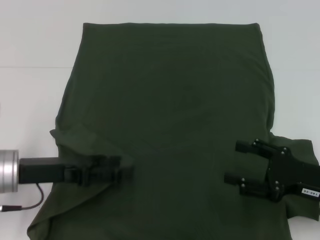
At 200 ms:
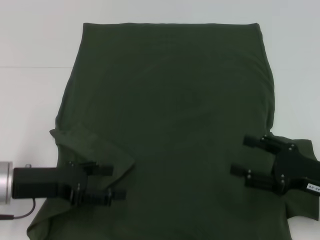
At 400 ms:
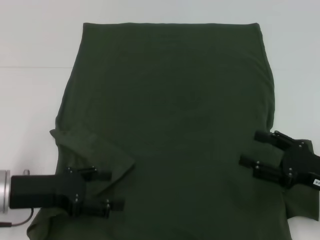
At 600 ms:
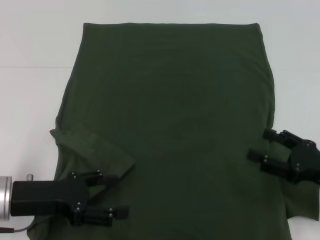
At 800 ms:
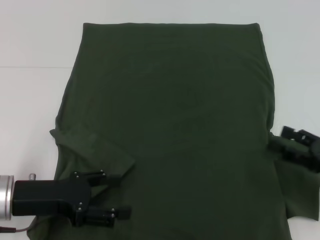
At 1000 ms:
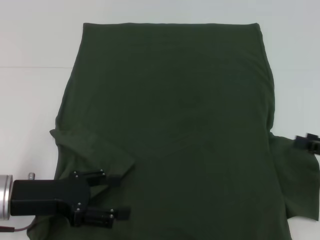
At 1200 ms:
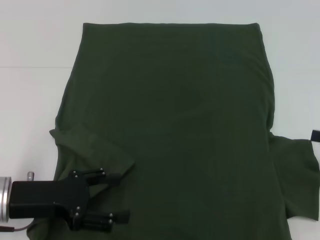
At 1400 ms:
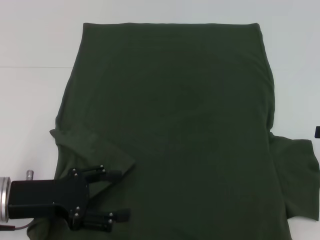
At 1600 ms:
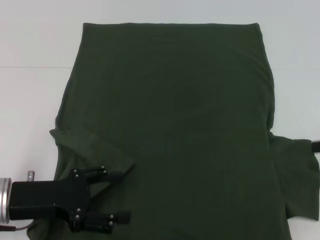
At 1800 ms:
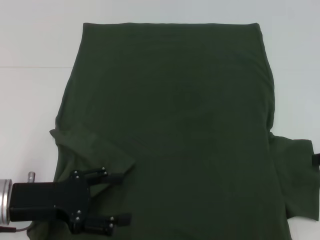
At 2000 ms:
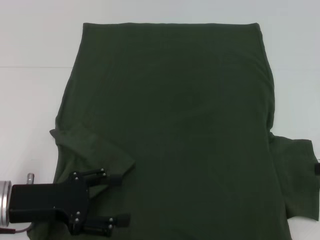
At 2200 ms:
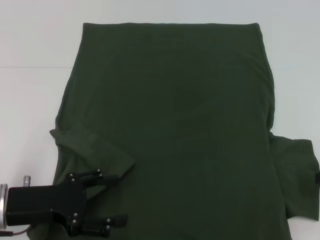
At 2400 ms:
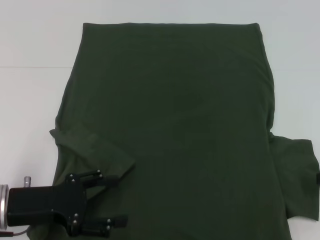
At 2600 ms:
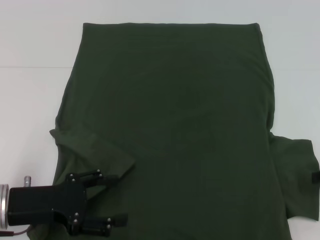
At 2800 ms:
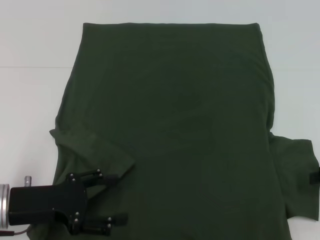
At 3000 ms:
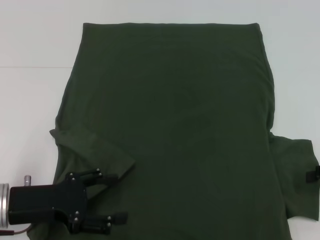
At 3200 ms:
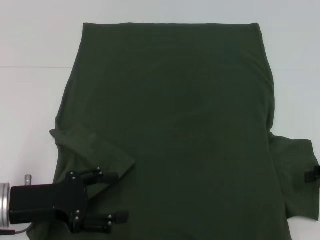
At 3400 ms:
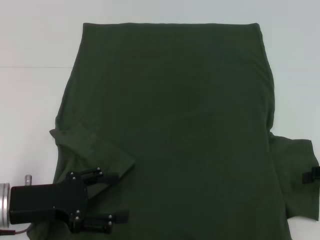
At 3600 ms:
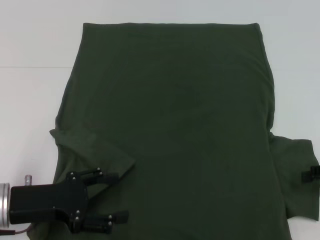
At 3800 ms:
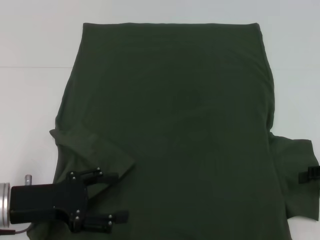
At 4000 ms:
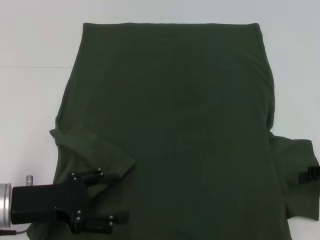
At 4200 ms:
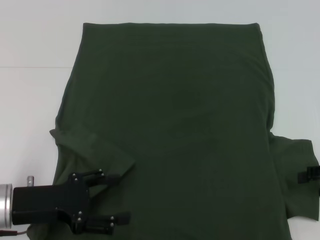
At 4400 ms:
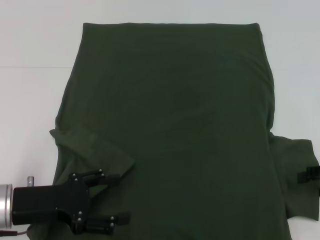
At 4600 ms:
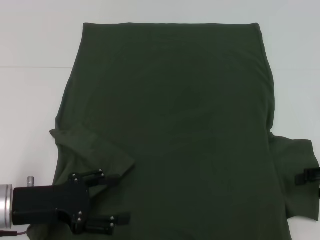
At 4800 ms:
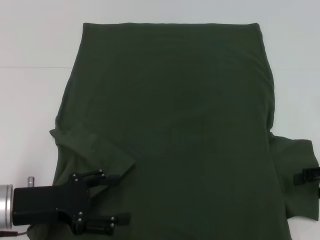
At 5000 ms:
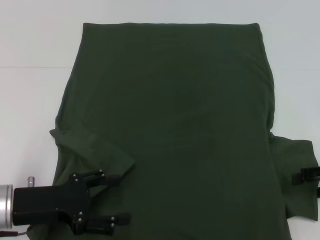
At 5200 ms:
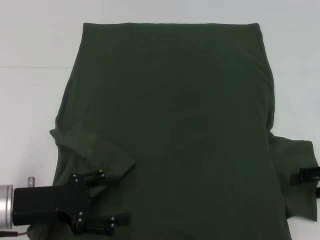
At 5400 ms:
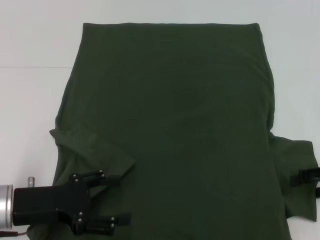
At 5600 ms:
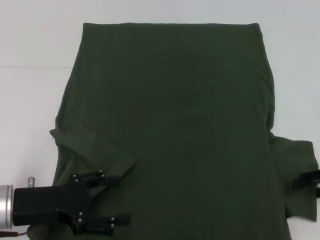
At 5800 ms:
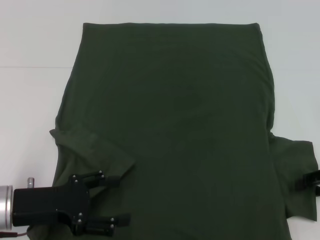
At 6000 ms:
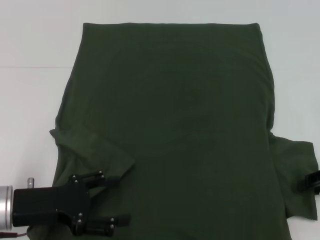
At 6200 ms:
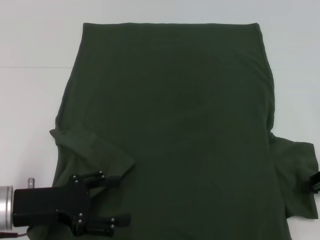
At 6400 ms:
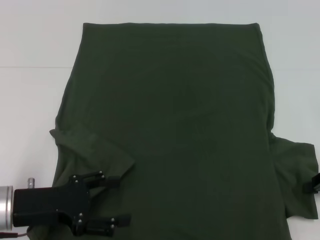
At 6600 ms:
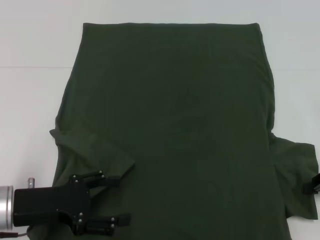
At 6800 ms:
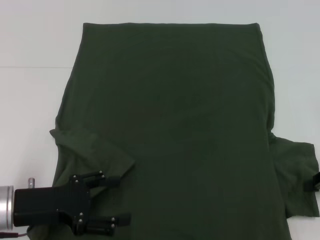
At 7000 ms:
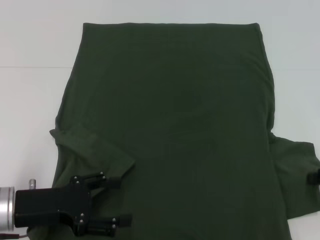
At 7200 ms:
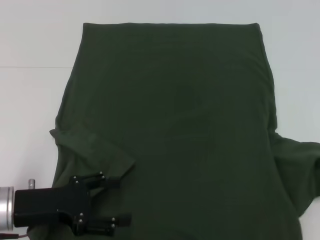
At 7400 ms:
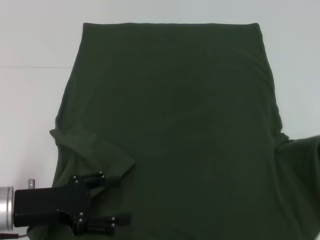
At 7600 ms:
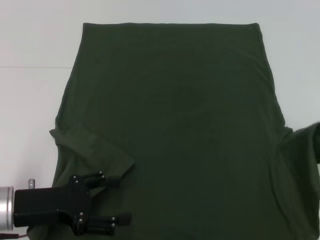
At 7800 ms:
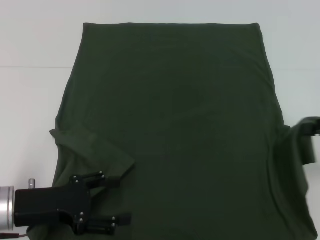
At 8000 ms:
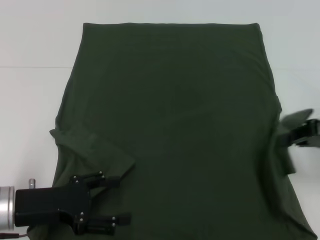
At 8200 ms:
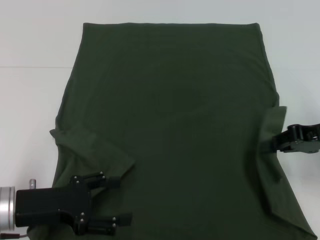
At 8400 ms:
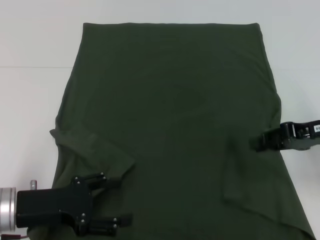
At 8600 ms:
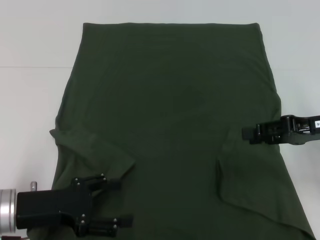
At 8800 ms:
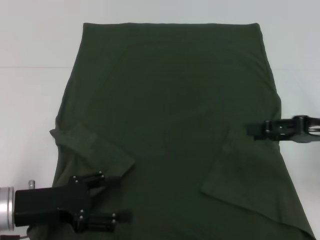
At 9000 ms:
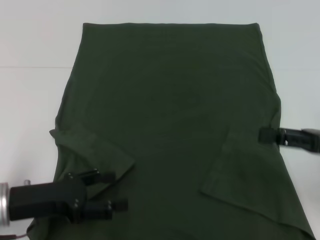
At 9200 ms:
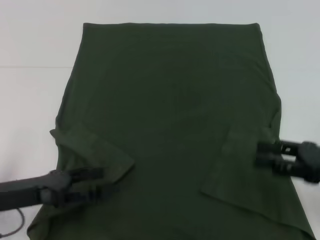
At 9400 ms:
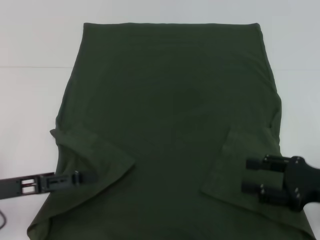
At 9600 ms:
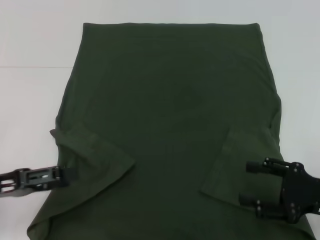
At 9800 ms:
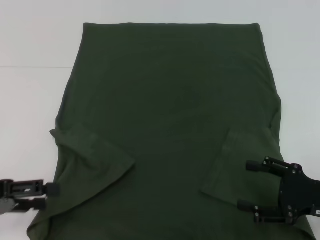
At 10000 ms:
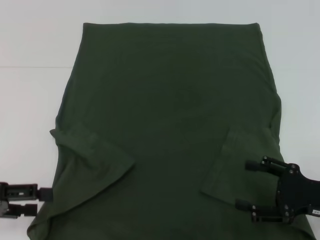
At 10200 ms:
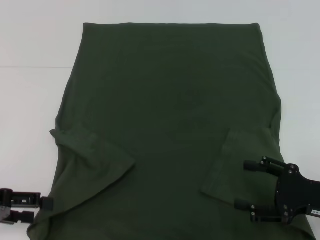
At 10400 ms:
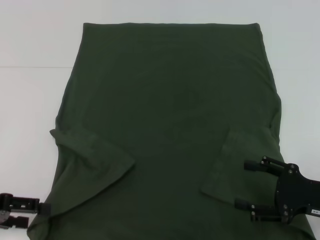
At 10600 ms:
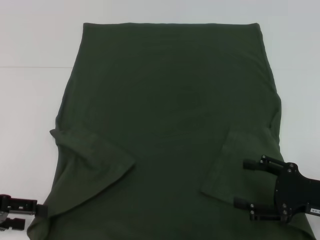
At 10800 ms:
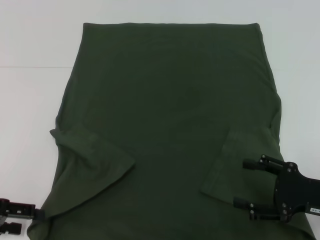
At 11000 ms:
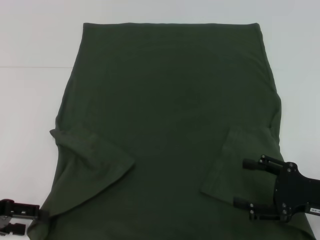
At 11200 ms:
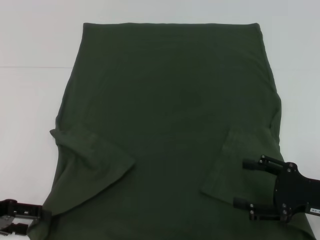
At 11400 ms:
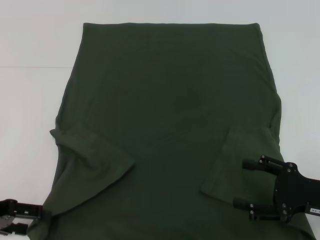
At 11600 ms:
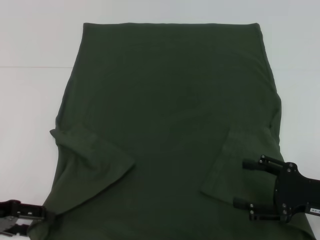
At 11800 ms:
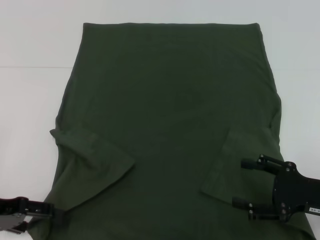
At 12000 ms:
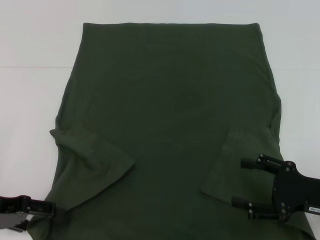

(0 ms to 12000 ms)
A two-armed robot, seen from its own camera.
Step, 0 ms - 8800 ms: Fold the bottom right sleeve with your right hand.
0 ms - 1600 ms: The right gripper heads to the right and upward, covering roughly 15 cm.
1600 ms - 4400 ms: The grippers make only small movements.
4400 ms - 6000 ms: Both grippers stay put.
6000 ms - 7600 ms: The right gripper shifts approximately 5 cm upward, and closes up.
7600 ms - 9000 ms: The right gripper shifts some 5 cm to the left, and opens.
9000 ms - 10400 ms: The right gripper goes some 10 cm downward and backward, and opens. Meanwhile the left gripper heads to the left, covering about 10 cm.
10400 ms - 12000 ms: The grippers make only small movements.

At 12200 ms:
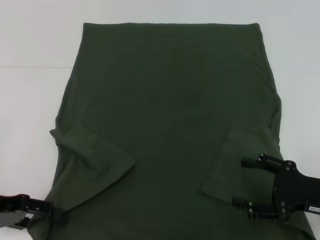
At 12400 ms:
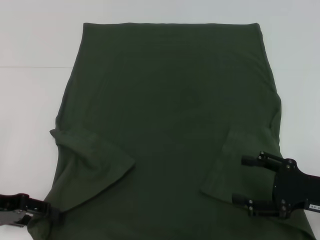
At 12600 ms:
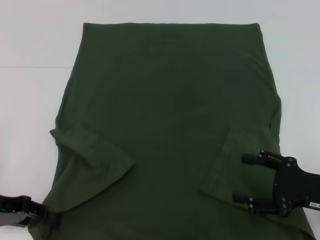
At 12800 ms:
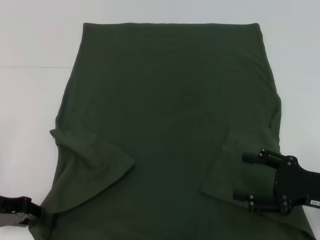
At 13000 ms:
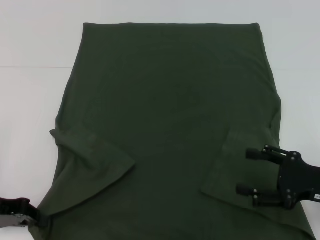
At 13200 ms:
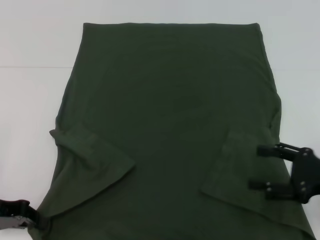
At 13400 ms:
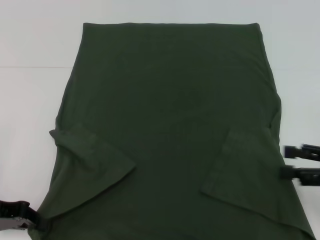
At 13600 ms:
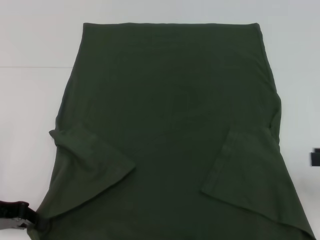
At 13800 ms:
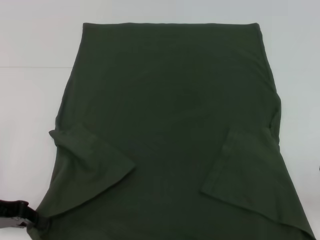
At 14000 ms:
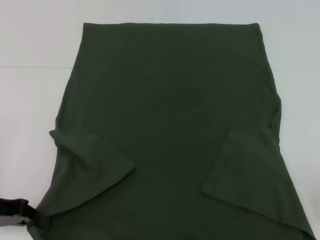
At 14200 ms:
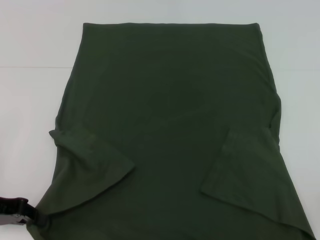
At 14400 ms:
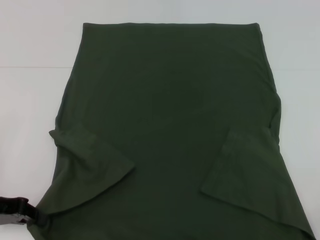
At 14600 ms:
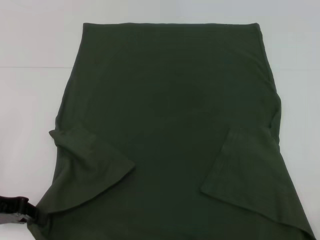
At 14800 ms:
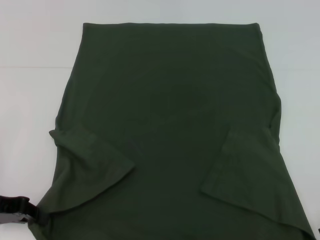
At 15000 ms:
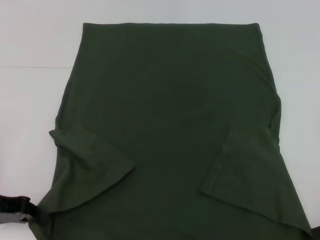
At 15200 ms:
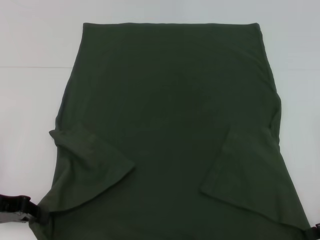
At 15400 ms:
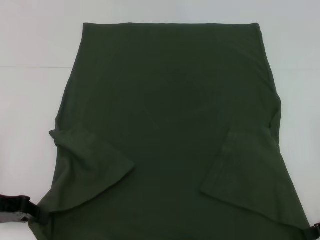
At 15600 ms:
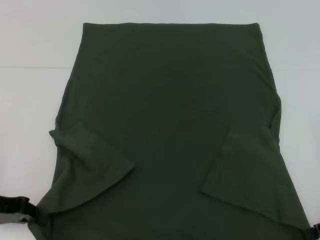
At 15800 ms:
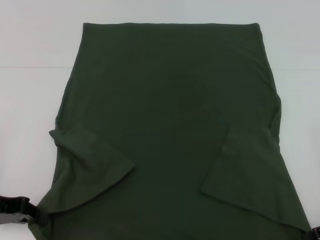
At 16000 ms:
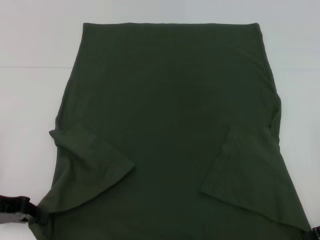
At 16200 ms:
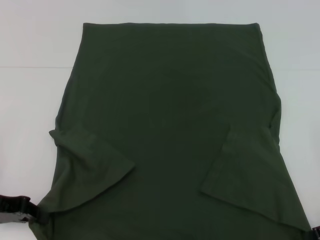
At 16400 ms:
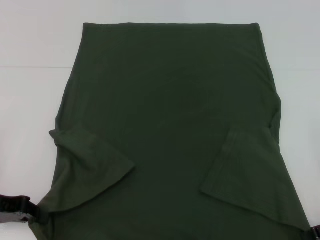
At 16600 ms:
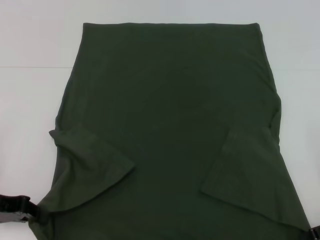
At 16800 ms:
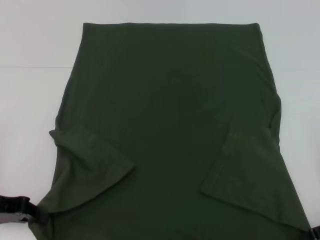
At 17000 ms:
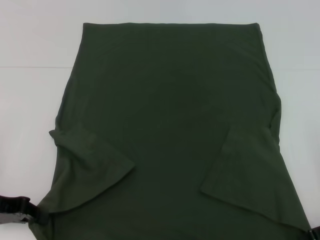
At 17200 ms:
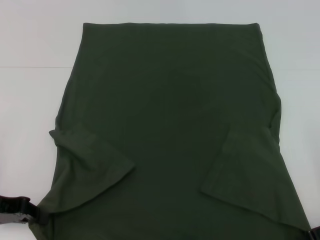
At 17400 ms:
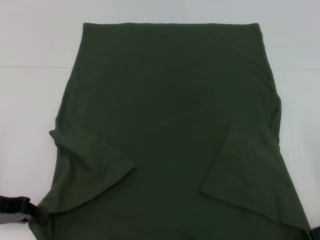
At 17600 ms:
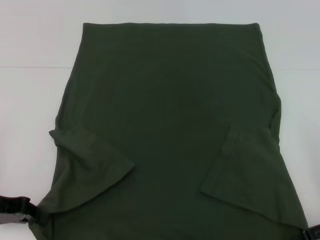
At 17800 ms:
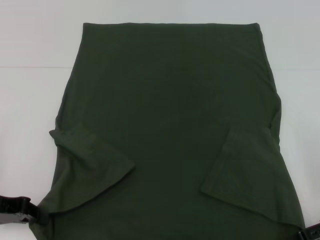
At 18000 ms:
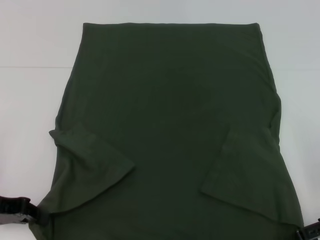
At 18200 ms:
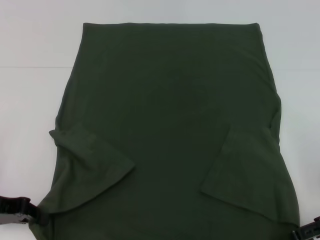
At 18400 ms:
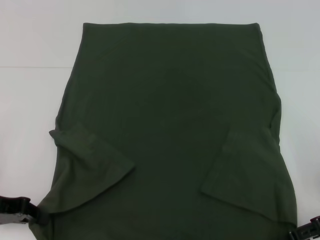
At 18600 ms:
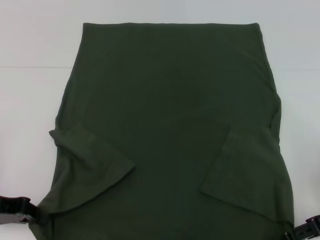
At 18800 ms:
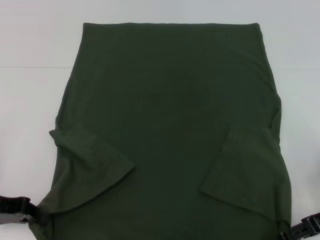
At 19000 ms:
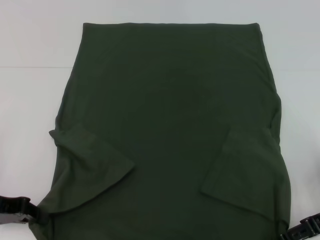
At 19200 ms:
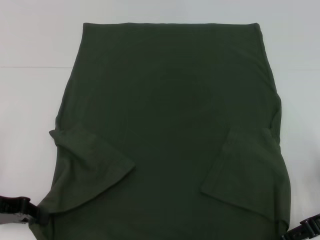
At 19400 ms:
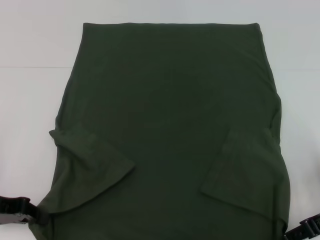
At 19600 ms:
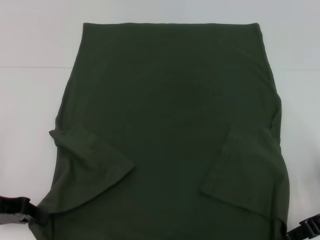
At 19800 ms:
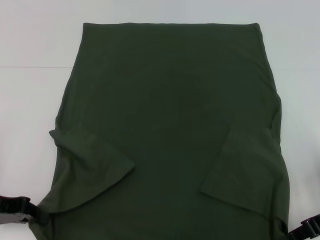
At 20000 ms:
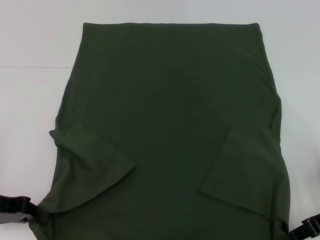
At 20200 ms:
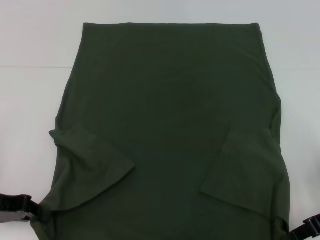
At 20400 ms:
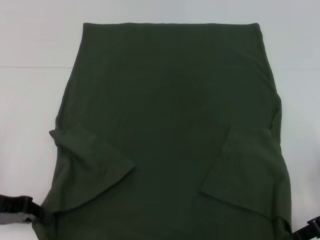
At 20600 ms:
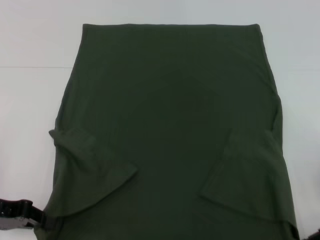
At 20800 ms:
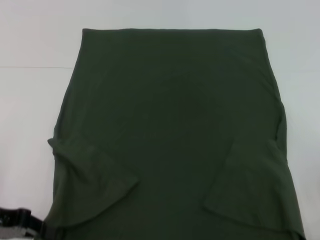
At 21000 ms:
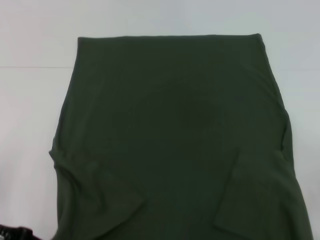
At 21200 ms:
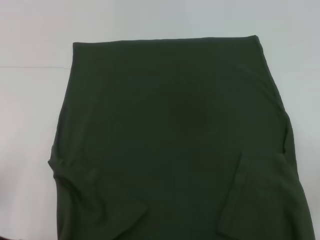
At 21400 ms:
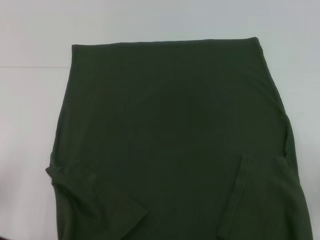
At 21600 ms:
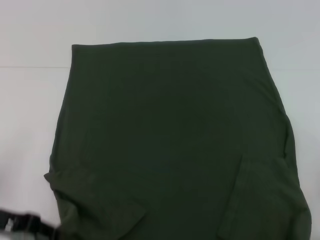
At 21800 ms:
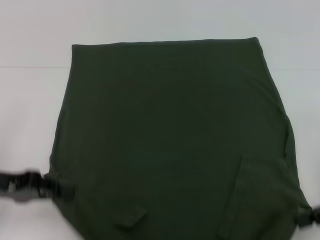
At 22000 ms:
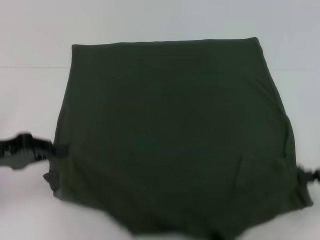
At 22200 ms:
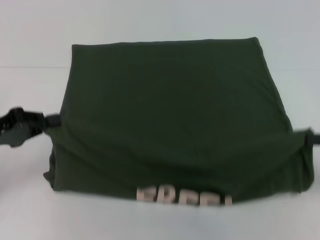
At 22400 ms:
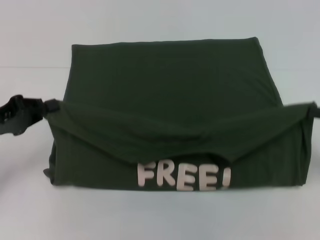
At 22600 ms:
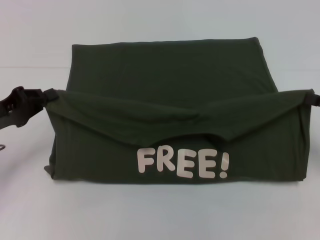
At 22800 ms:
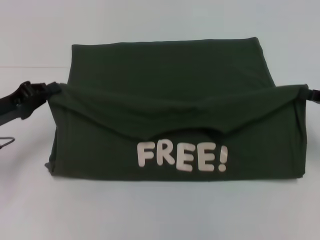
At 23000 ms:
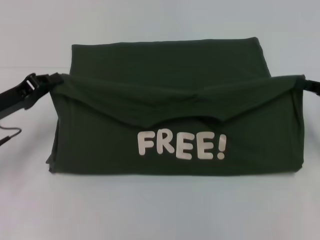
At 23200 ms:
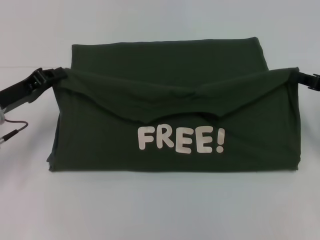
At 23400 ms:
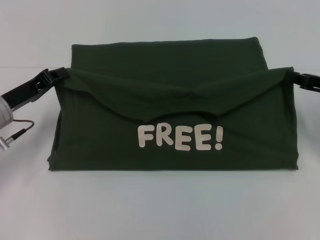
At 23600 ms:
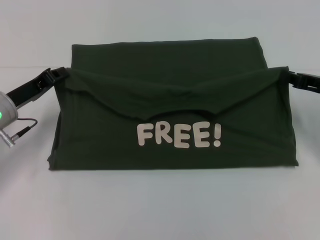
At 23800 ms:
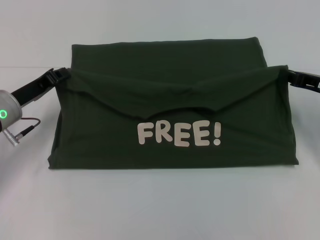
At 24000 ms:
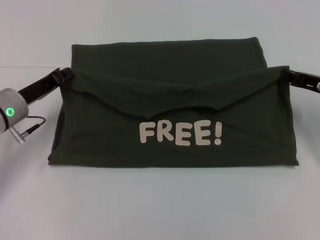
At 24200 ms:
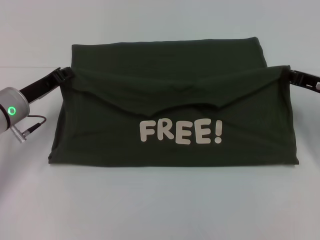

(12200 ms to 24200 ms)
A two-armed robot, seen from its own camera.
12200 ms - 13800 ms: The right gripper is displaced upward and to the right by approximately 15 cm. The left gripper closes.
15200 ms - 16600 ms: Both grippers stay about where they are.
18200 ms - 19800 ms: The right gripper closes up.
21200 ms - 22600 ms: Both grippers move forward, about 5 cm.
22600 ms - 24200 ms: The left gripper goes roughly 10 cm forward and to the right. The right gripper moves forward and to the left, about 10 cm.
